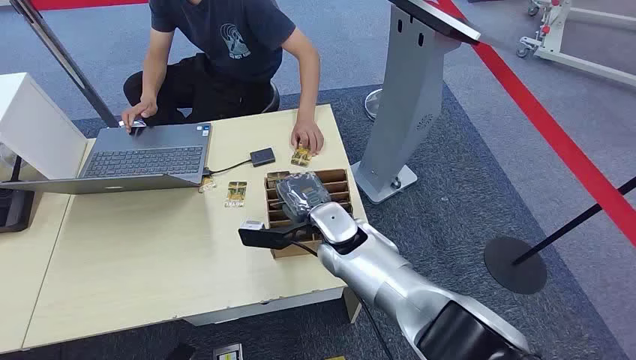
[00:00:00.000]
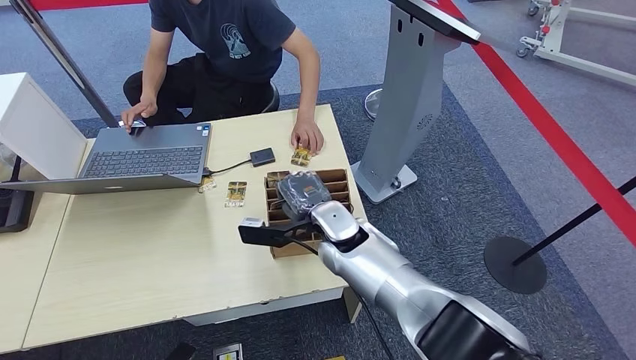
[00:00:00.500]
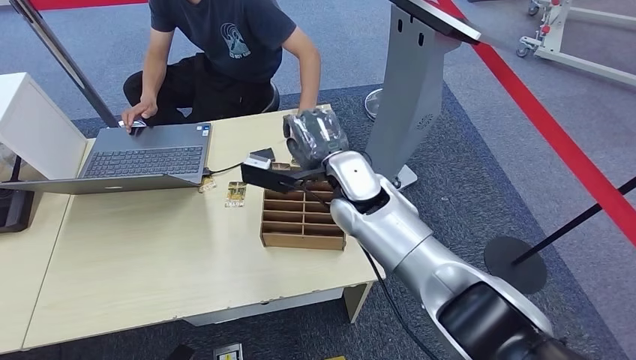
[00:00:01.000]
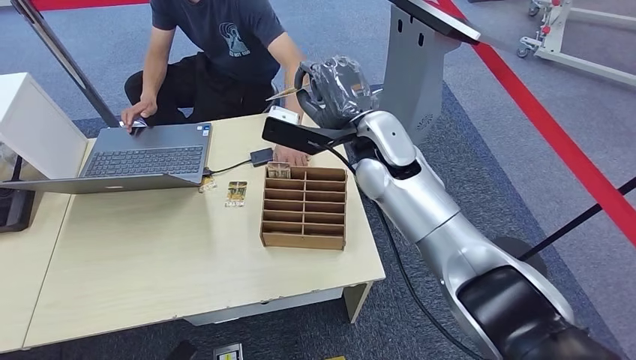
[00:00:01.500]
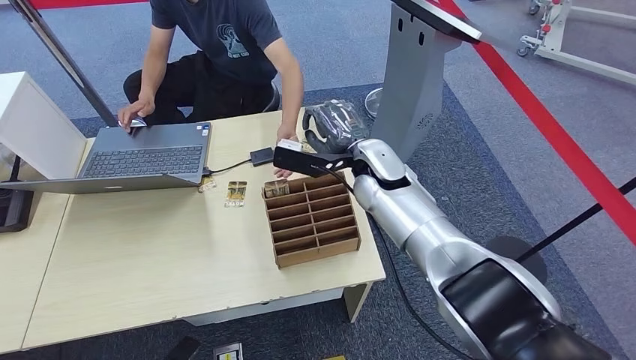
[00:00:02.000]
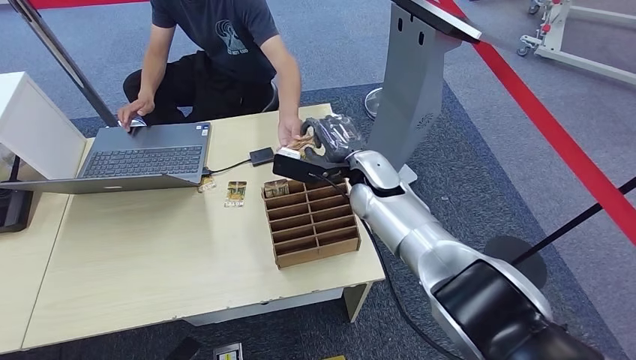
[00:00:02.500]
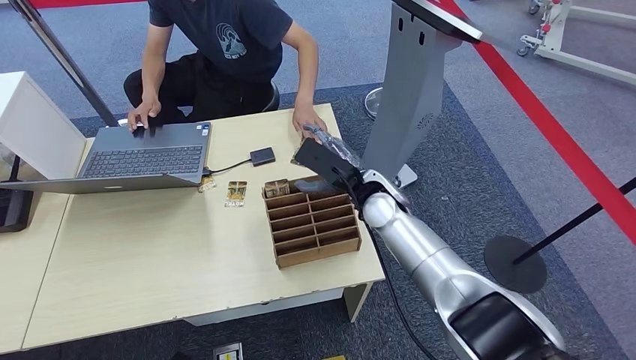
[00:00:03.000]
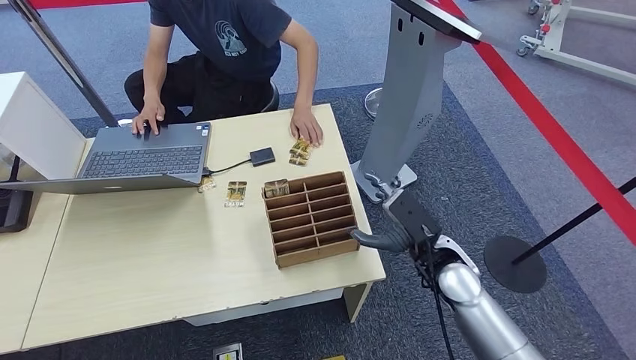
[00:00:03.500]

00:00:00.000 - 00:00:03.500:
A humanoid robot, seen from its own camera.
Step, 00:00:00.000 - 00:00:01.000: Pick up the key card from the card box.
Step, 00:00:01.500 - 00:00:03.500: Hand the key card to the target.
00:00:02.000 - 00:00:03.500: The right hand is displaced backward, downward and to the right by about 20 cm, while the left hand ends up some 5 cm from where it was.

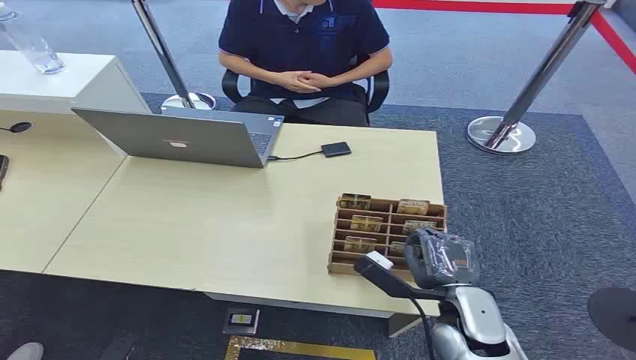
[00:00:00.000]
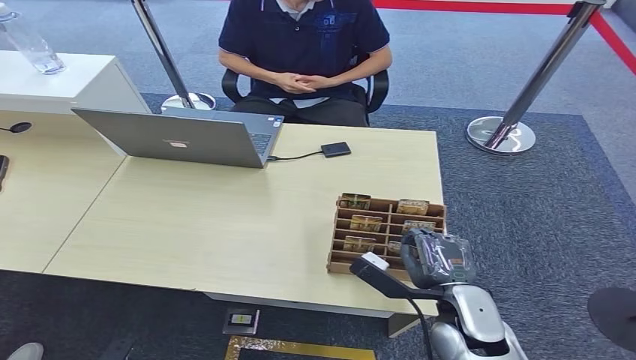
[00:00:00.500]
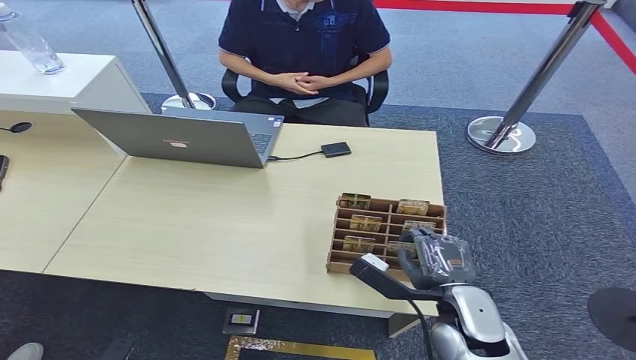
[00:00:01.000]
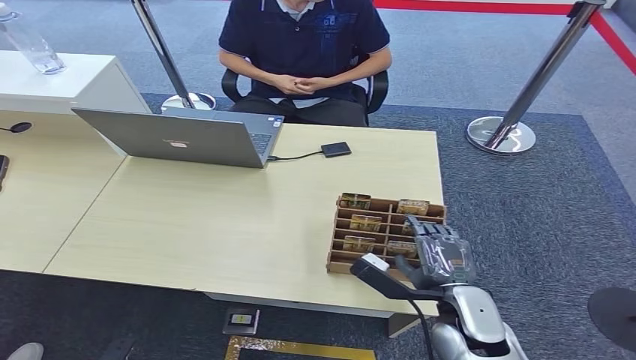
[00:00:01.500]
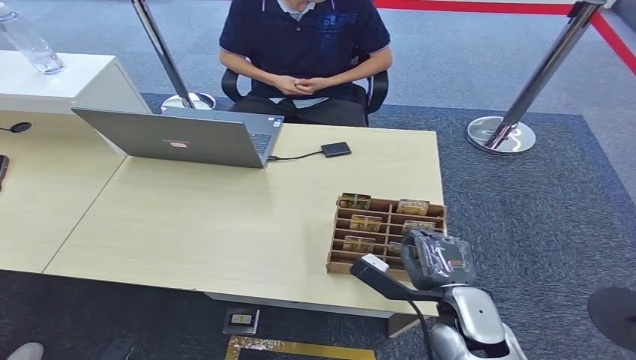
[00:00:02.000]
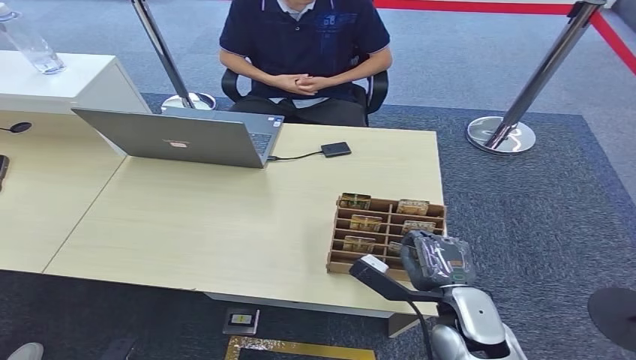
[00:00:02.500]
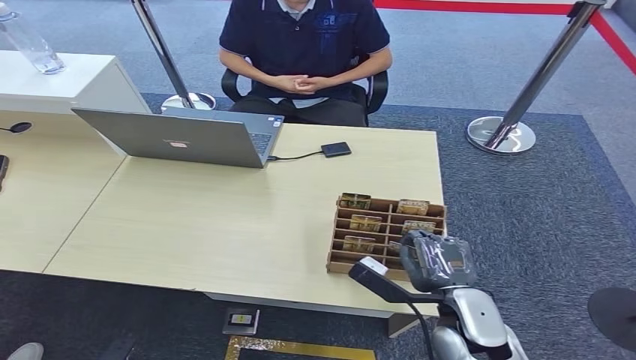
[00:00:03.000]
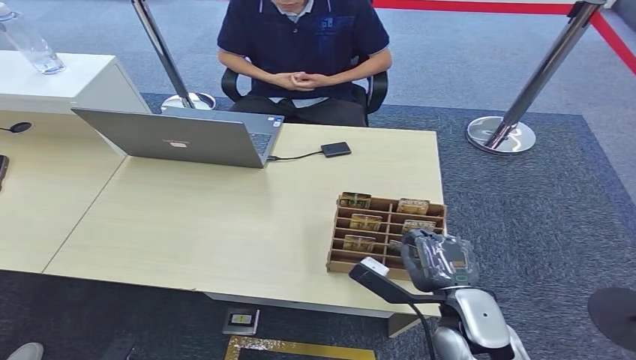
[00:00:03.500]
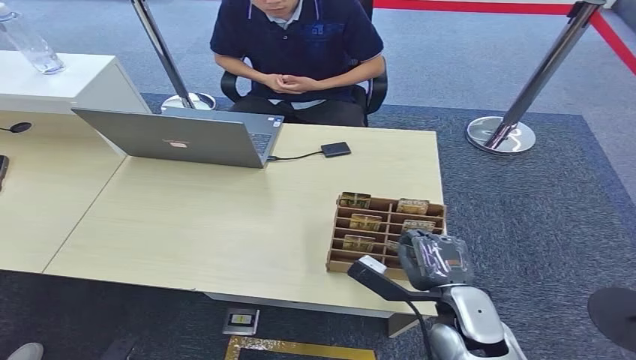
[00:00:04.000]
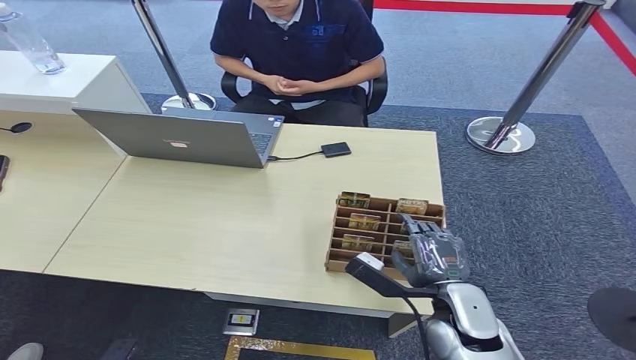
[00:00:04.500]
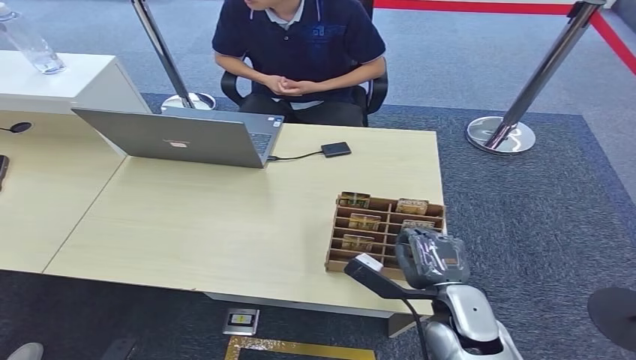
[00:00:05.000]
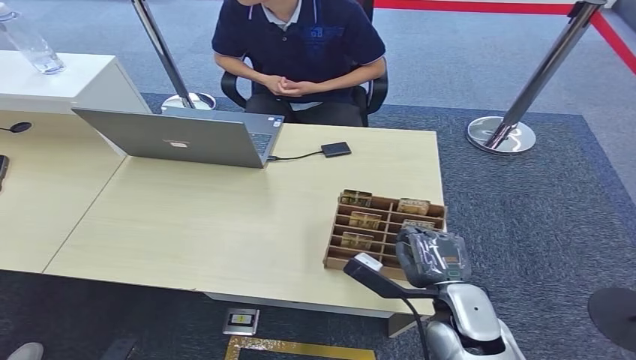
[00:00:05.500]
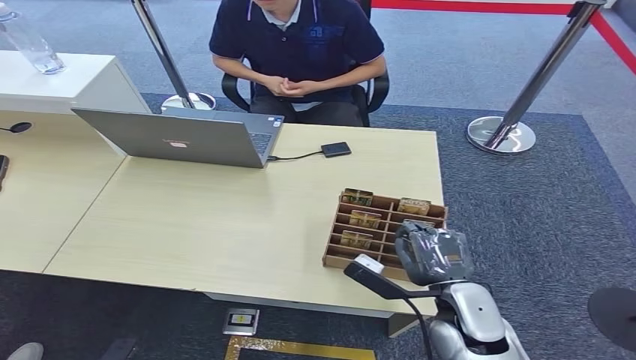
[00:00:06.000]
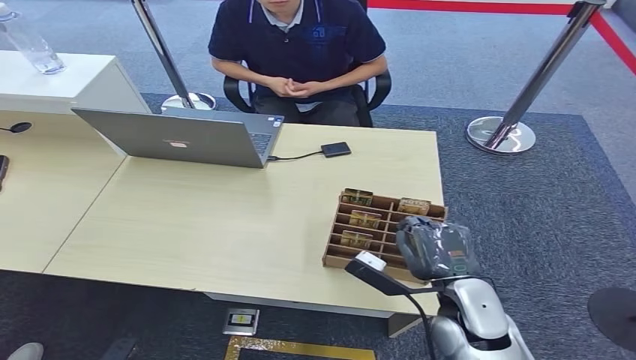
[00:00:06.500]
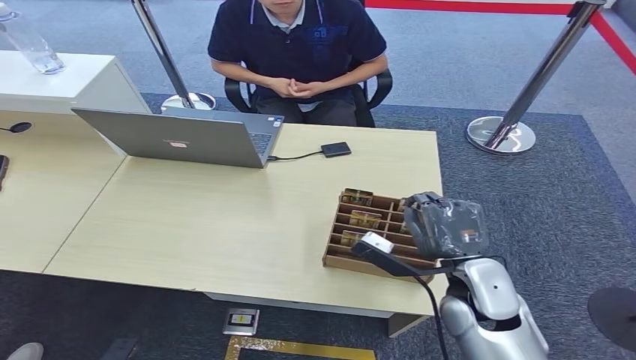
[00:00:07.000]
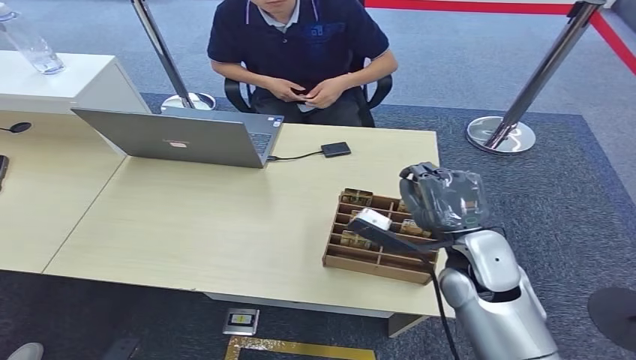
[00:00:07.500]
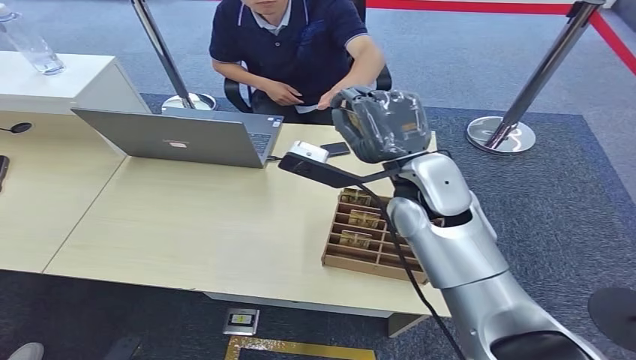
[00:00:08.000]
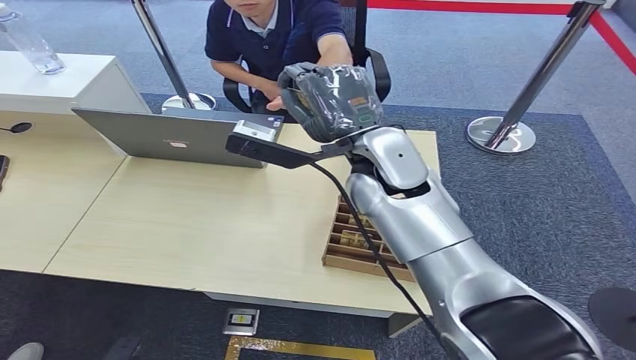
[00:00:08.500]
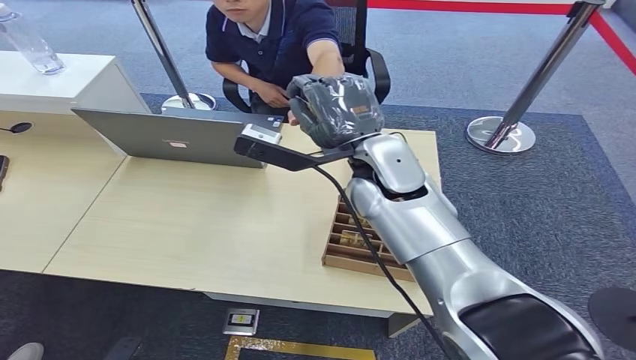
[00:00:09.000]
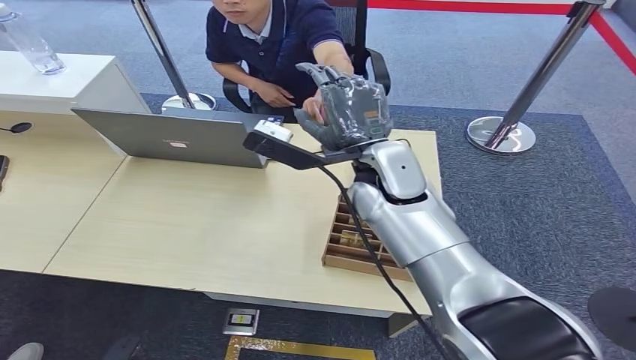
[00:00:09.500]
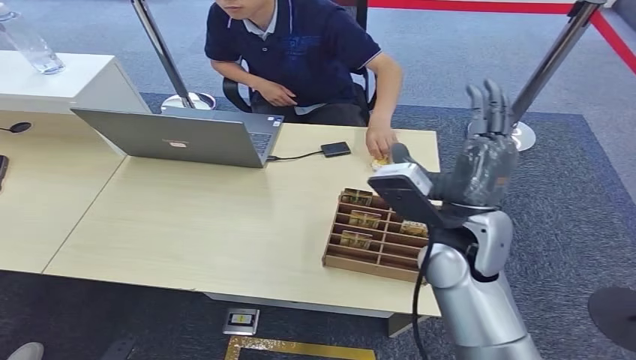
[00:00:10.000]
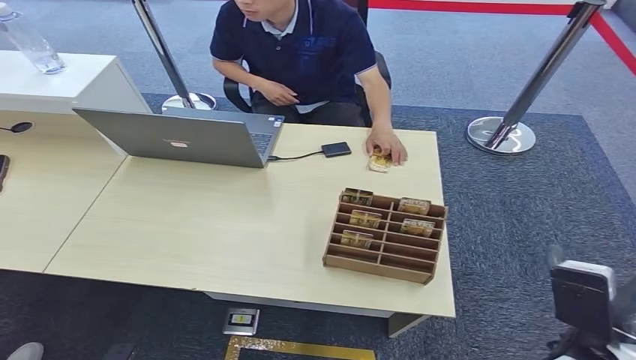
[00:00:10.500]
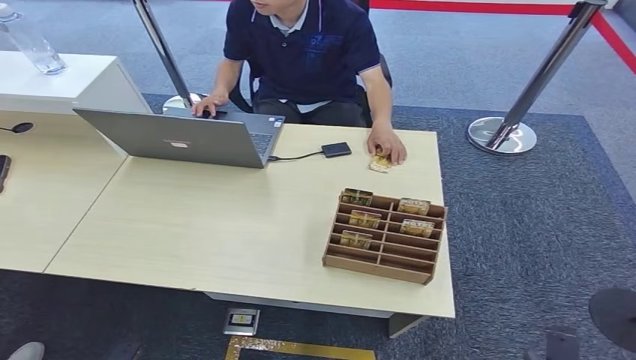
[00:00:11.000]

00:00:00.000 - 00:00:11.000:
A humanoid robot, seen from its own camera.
Step, 00:00:00.000 - 00:00:08.000: Pick up the key card from the card box.
Step, 00:00:08.500 - 00:00:11.000: Hand the key card to the target.
00:00:02.000 - 00:00:03.500: Both hands stay about where they are.
00:00:03.500 - 00:00:05.500: There are only small adjustments of the hands.
00:00:05.500 - 00:00:07.500: The right hand moves forward and upward, roughly 10 cm.
00:00:07.500 - 00:00:09.000: The right hand heads upward, to the left and forward, covering some 20 cm.
00:00:09.000 - 00:00:11.000: The right hand shifts approximately 50 cm downward, backward and to the right.
